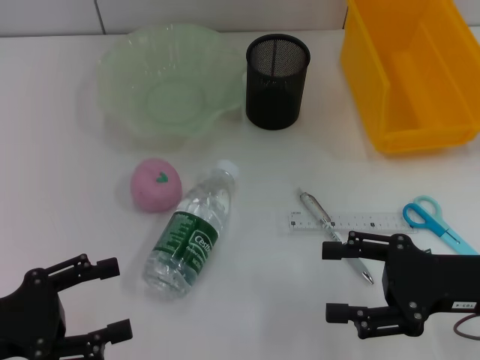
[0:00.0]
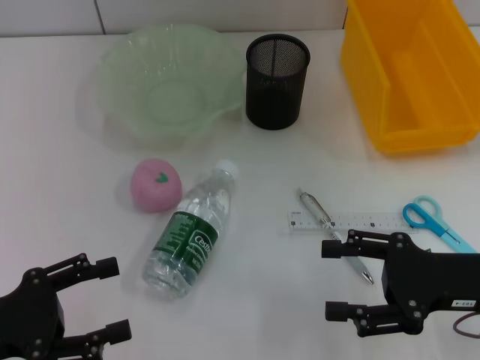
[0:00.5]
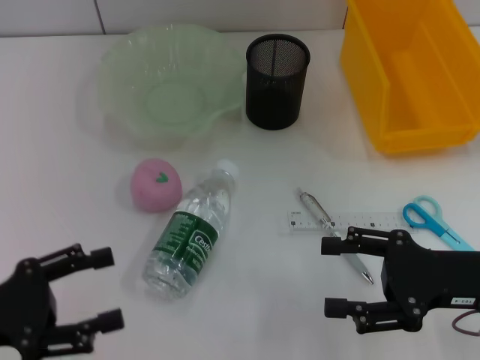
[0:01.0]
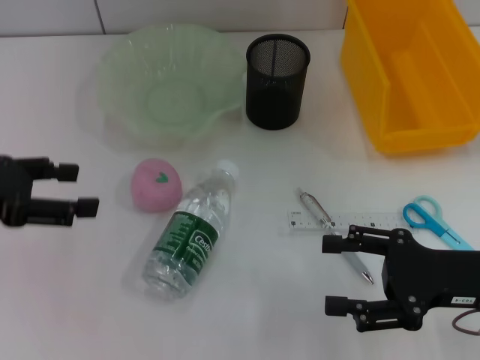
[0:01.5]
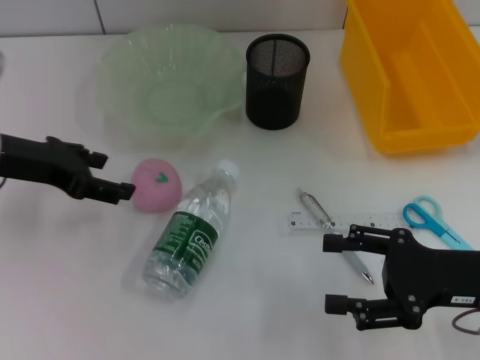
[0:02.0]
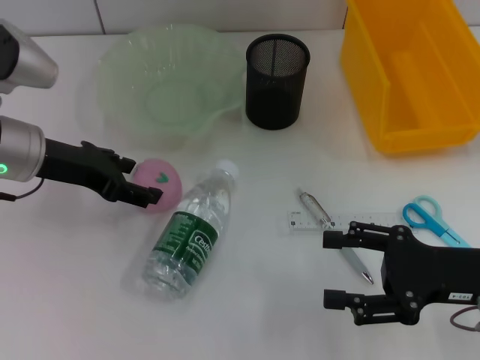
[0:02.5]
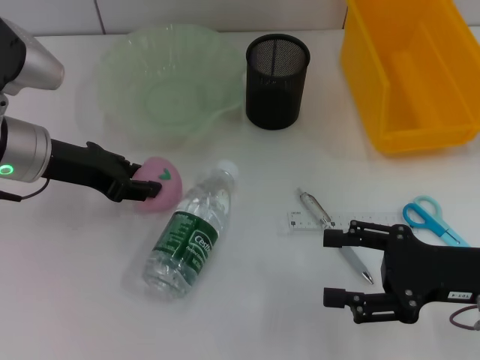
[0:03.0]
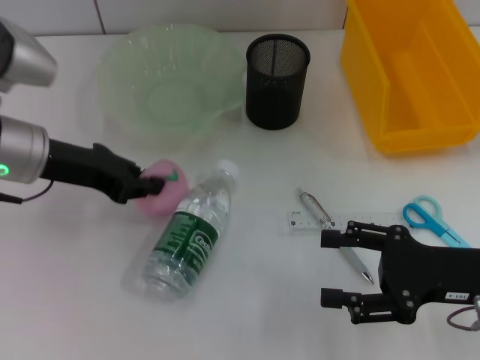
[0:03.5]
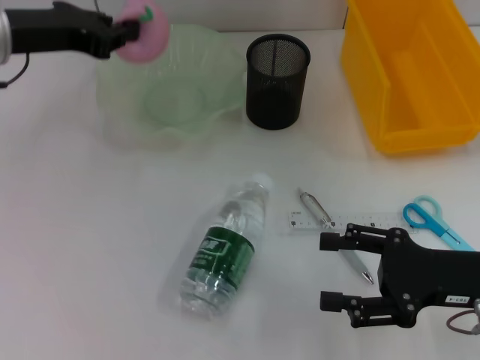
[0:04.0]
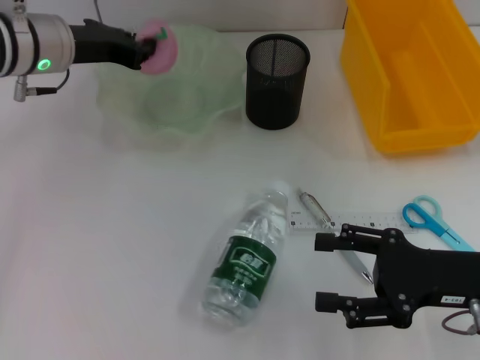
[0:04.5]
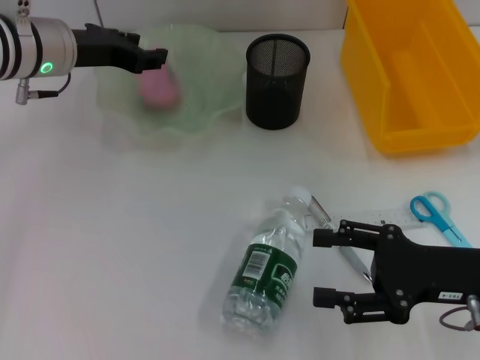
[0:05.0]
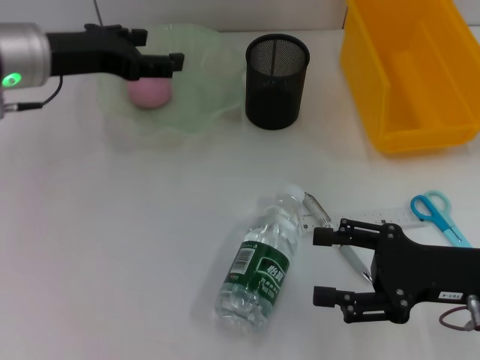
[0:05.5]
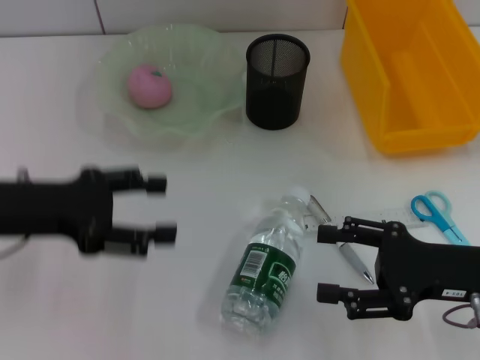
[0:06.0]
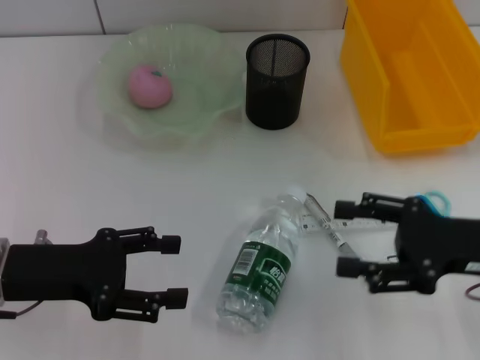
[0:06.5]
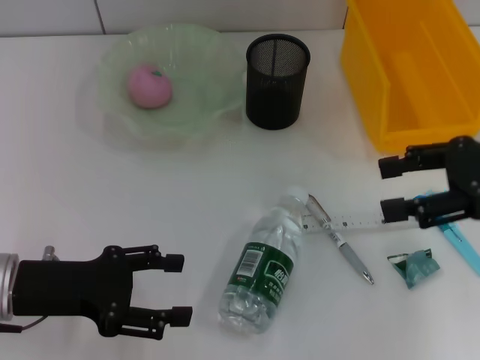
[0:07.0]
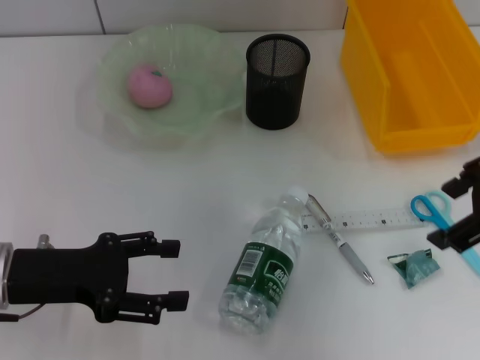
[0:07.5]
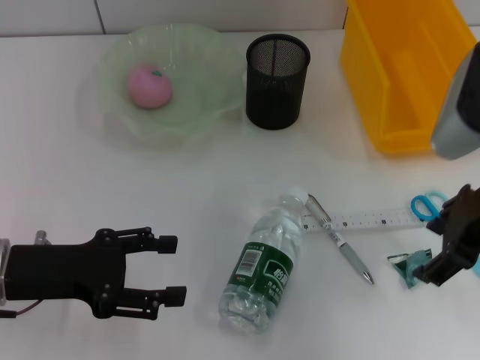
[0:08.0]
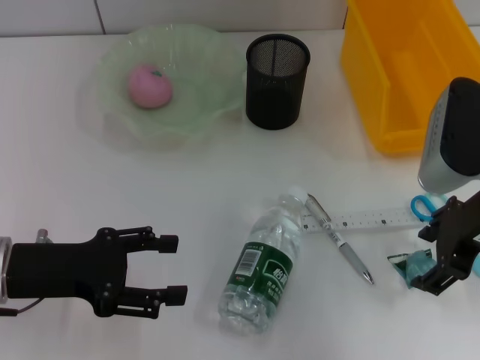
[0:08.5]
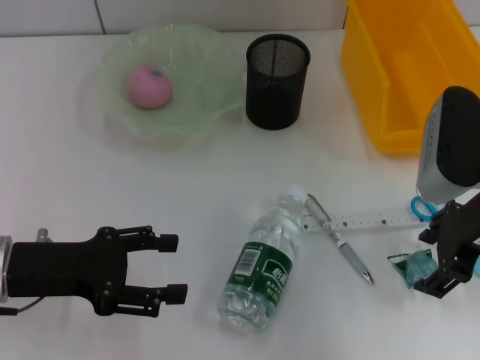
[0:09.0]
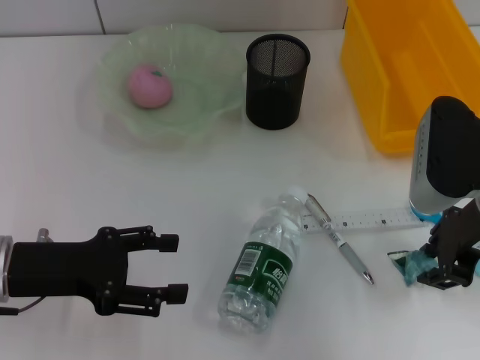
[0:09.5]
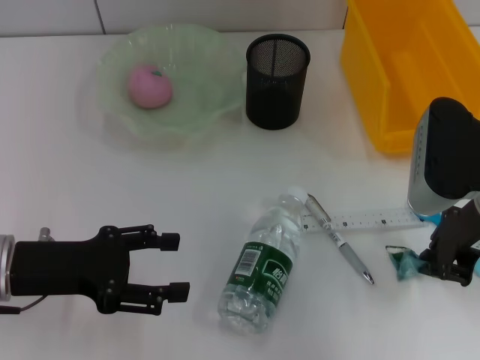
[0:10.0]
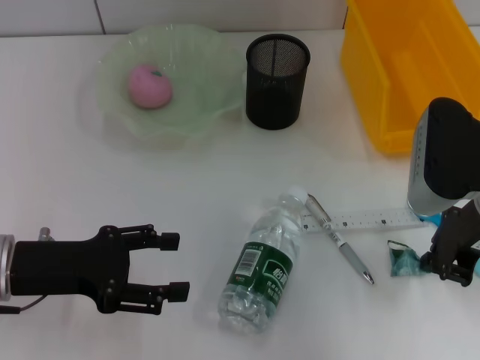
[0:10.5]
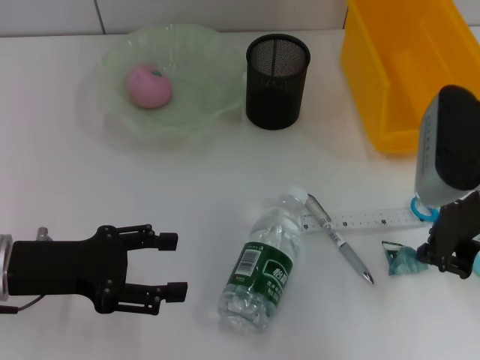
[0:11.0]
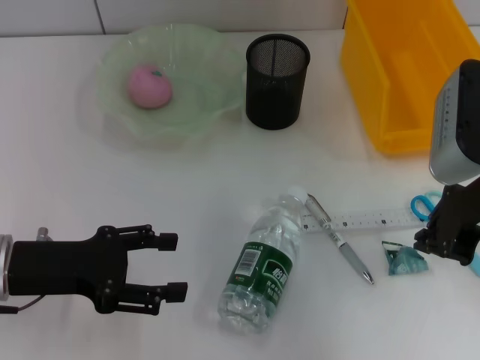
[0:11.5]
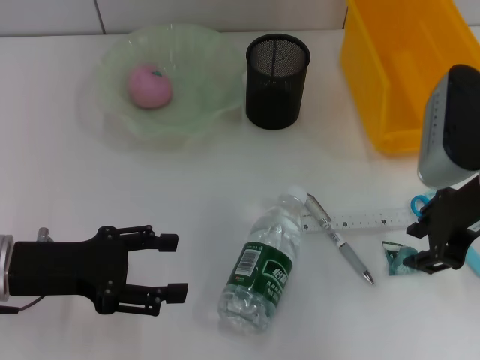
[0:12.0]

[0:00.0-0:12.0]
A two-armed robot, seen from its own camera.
Step, 0:00.0 to 0:03.0: Grab the peach with the left hand.
Step, 0:03.5 to 0:05.0: Place the peach into the fruit bowl with the left hand.
0:00.0 to 0:02.0: The left gripper is displaced forward and upward by some 20 cm.
0:02.0 to 0:04.0: The left gripper goes some 10 cm upward and forward, and closes its fingers.
0:04.0 to 0:06.0: The left gripper heads backward and downward, covering roughly 10 cm, and opens up.
0:06.0 to 0:08.0: The left gripper goes approximately 5 cm downward. The right gripper goes roughly 15 cm upward and forward.
0:08.0 to 0:10.0: The right gripper closes.
0:10.0 to 0:12.0: The grippers stay close to where they were, moving slightly.

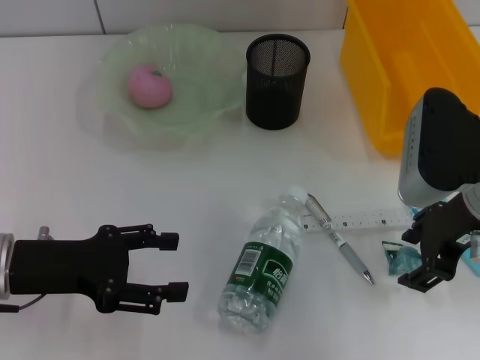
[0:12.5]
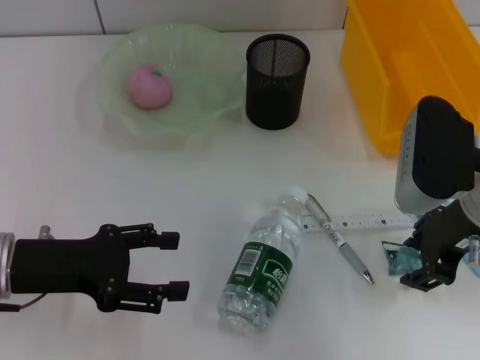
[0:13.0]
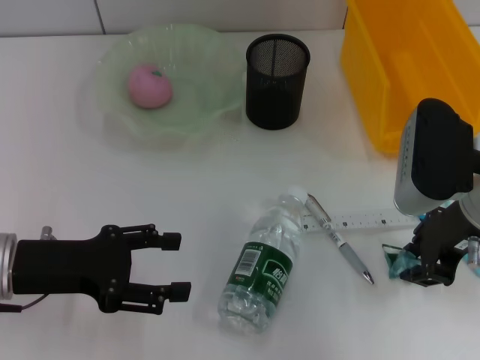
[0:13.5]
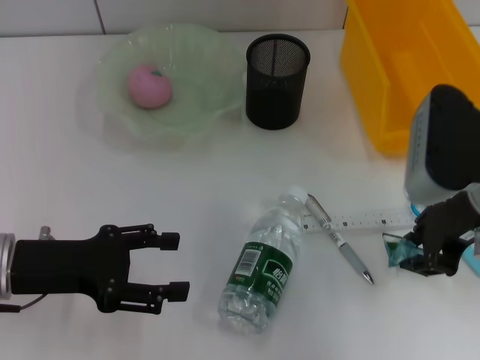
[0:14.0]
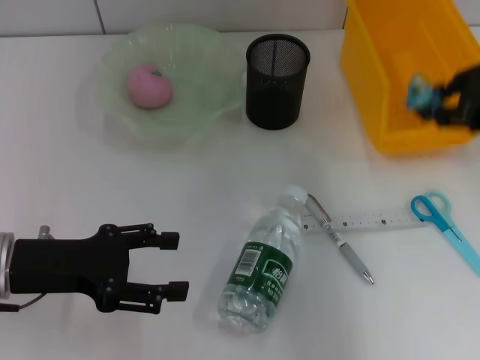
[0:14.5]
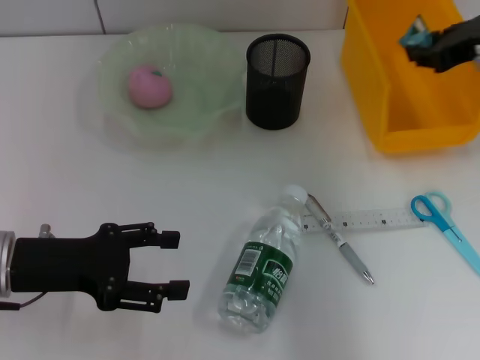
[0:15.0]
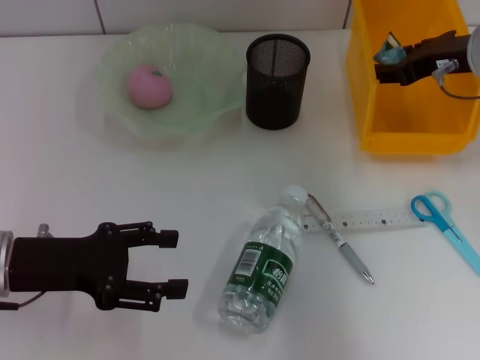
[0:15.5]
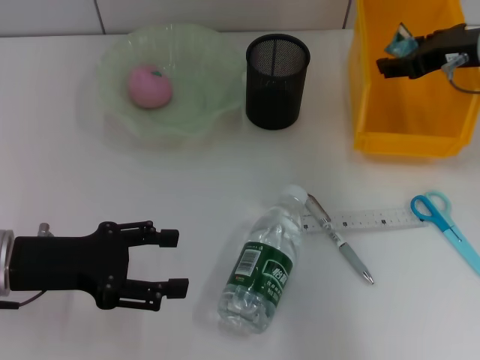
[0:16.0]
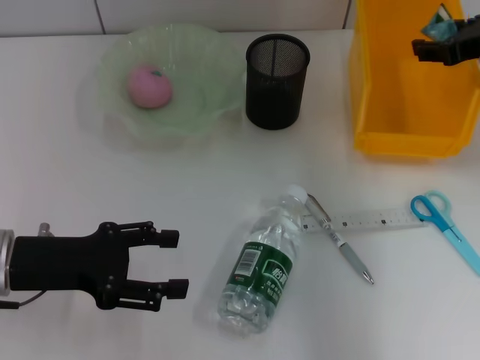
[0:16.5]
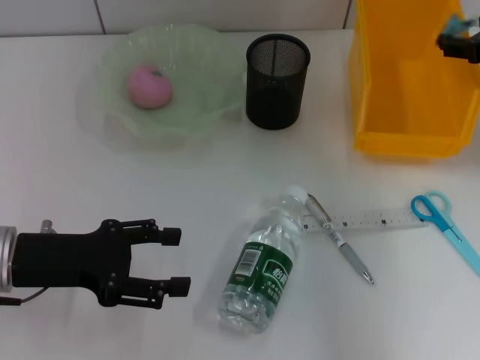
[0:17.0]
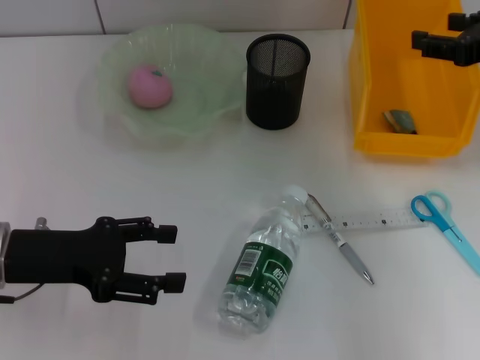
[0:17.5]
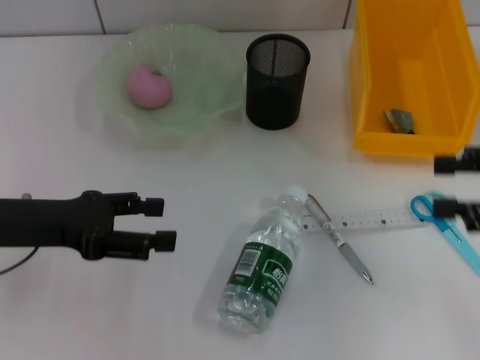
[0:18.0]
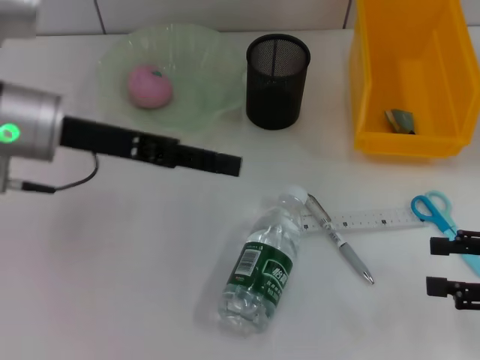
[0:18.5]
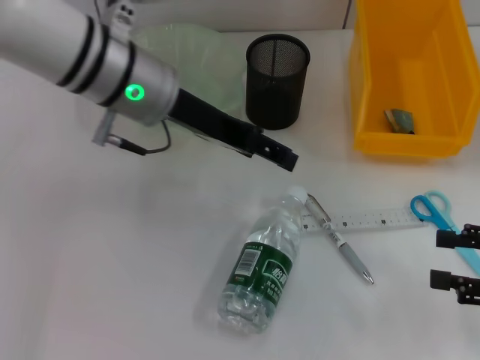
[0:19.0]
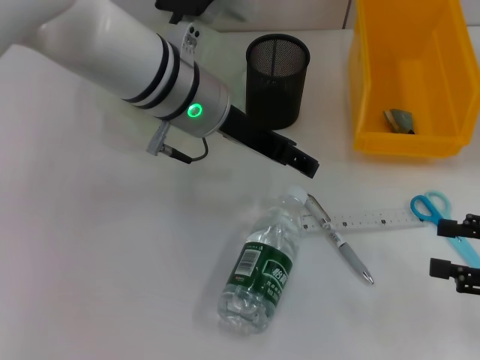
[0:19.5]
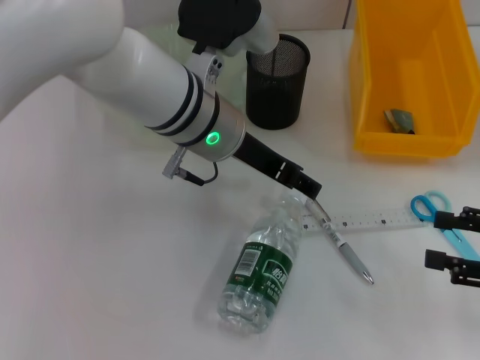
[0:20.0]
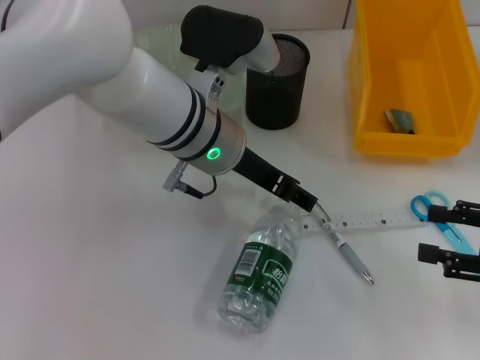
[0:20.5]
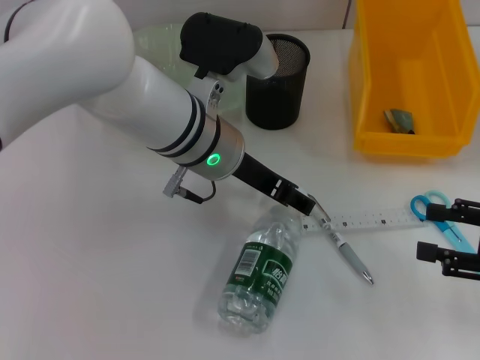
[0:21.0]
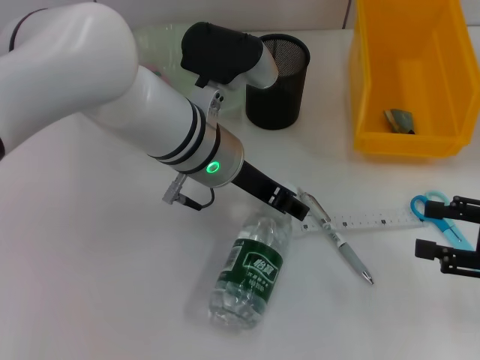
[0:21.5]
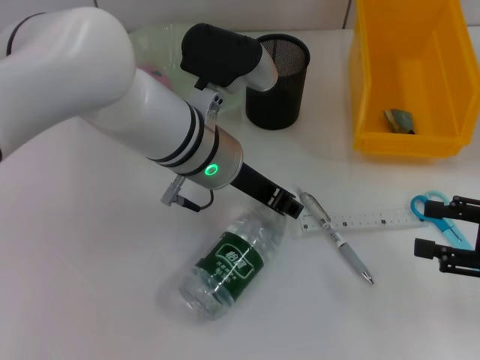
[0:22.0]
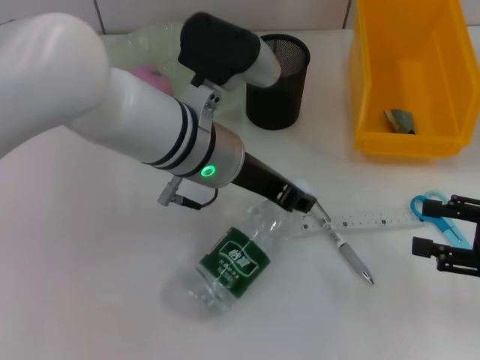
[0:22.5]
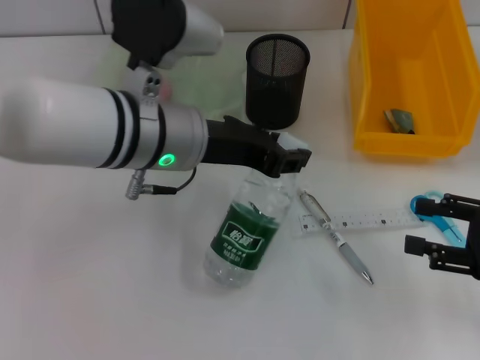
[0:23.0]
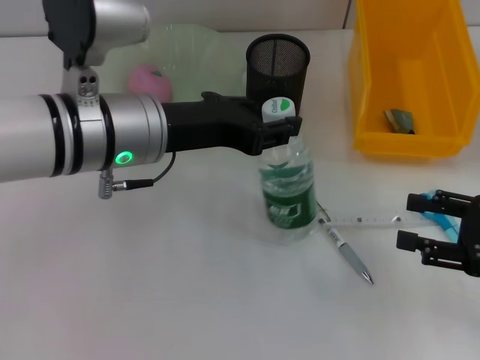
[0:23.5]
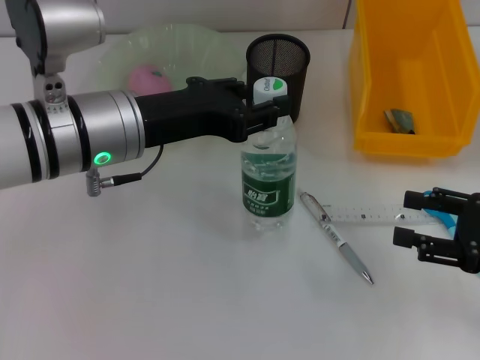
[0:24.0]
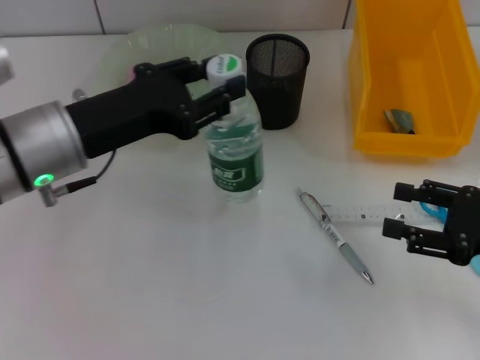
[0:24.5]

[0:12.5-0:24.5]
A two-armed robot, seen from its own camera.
Step, 0:14.0 to 0:17.0: Place the plastic into the trash can with the right hand.
Step, 0:17.5 to 0:21.5: Grab the water bottle with the left hand.
0:12.5 to 0:14.5: The right gripper is displaced upward and to the right by some 10 cm, and closes its fingers.
0:14.5 to 0:16.5: The right gripper is displaced forward and downward by roughly 10 cm, and opens.
0:16.5 to 0:18.5: The left gripper heads upward, forward and to the right, covering approximately 15 cm. The right gripper shifts approximately 20 cm backward, downward and to the right.
0:18.5 to 0:20.5: The left gripper goes about 15 cm to the right.
0:20.5 to 0:22.5: The left gripper closes up.
0:22.5 to 0:24.5: The left gripper shifts about 15 cm to the left.

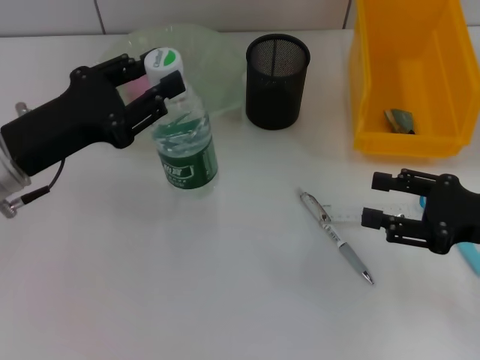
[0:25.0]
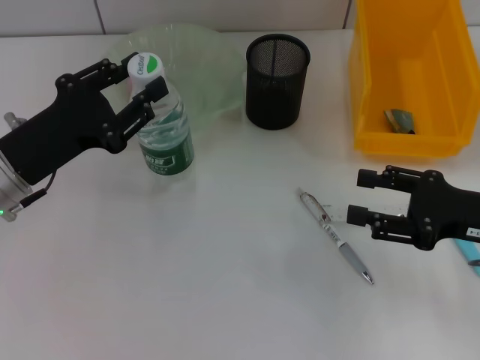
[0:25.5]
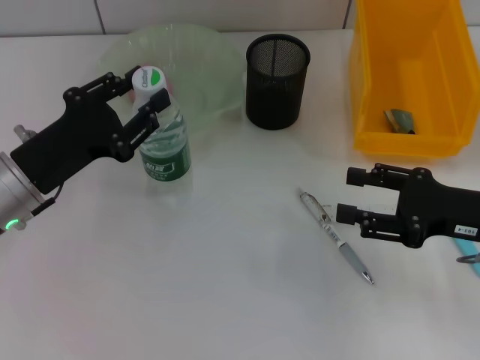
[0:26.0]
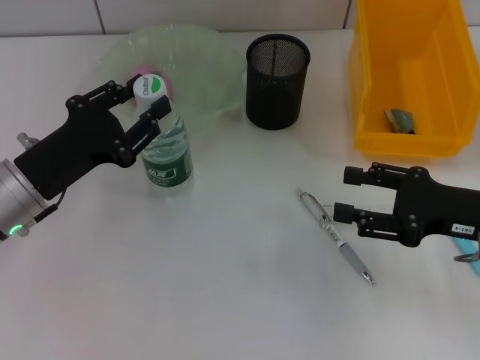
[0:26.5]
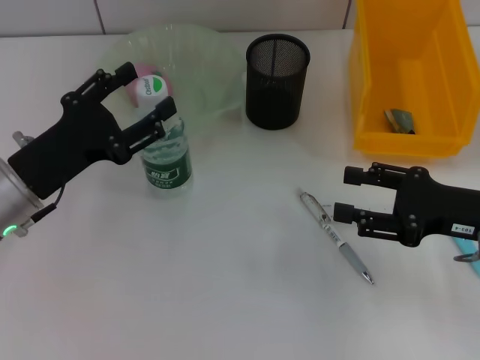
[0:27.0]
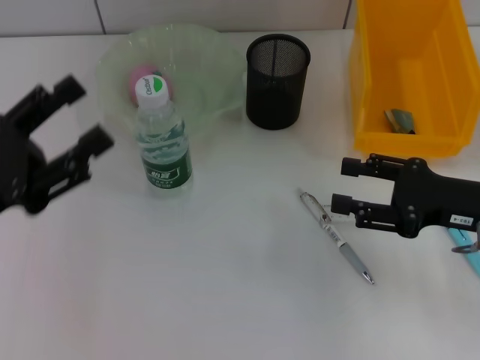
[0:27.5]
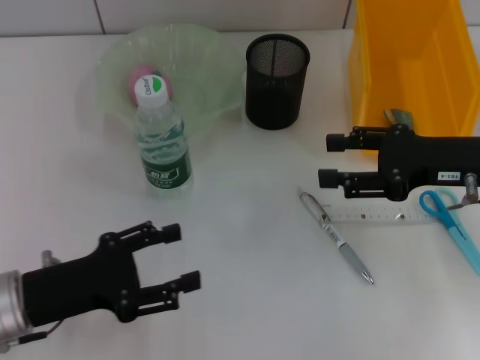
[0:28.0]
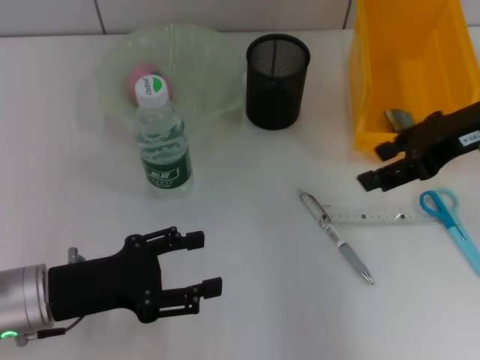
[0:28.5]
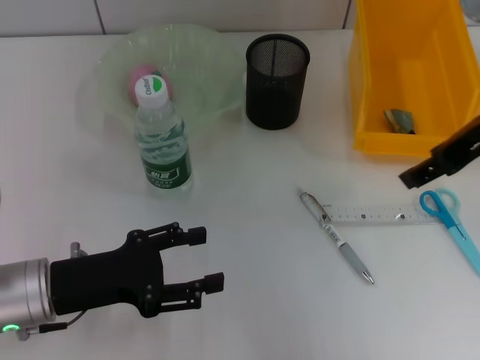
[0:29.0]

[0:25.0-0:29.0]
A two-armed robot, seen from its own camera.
Step, 0:25.0 to 0:27.0: Place the water bottle on the table with the left hand.
0:25.0 to 0:27.0: The left gripper opens.
0:27.0 to 0:29.0: The right gripper shifts approximately 15 cm upward; the left gripper goes some 5 cm backward.
